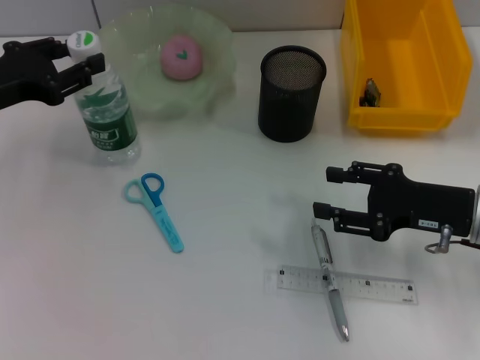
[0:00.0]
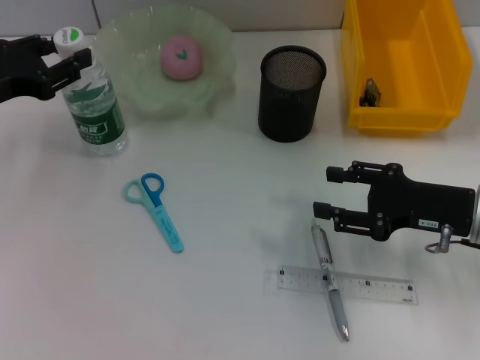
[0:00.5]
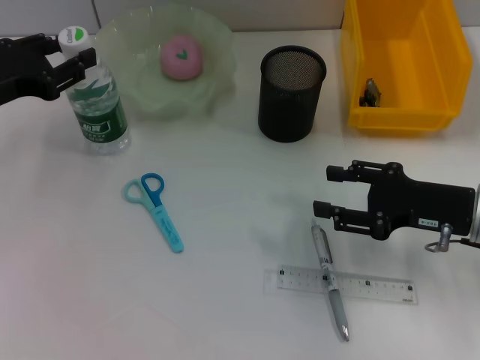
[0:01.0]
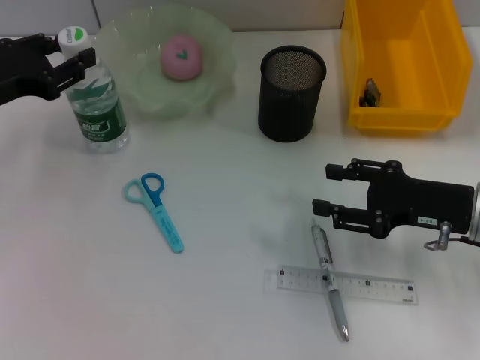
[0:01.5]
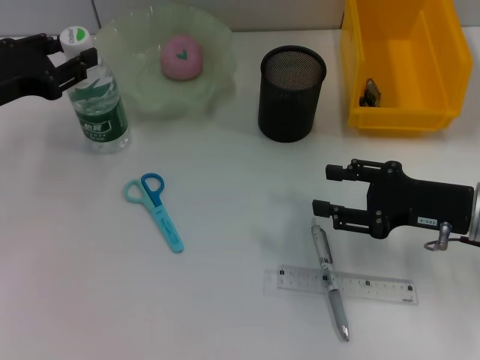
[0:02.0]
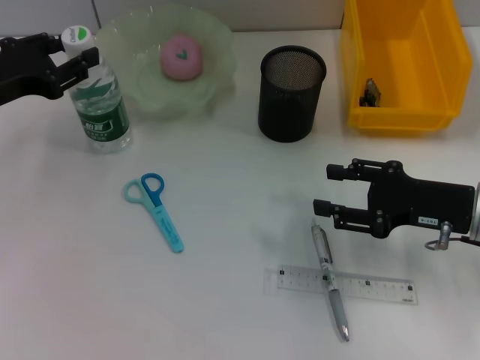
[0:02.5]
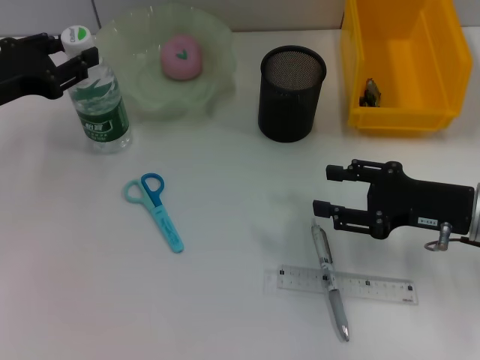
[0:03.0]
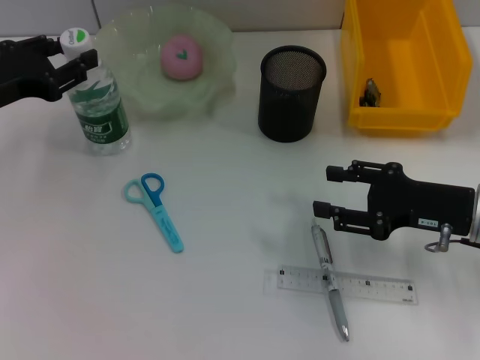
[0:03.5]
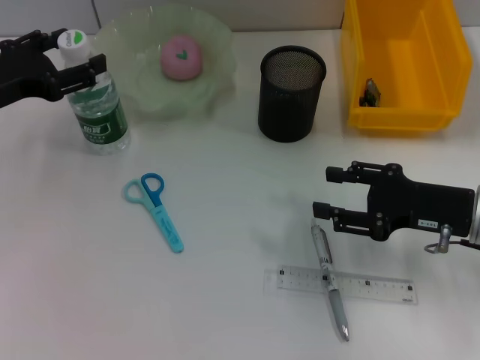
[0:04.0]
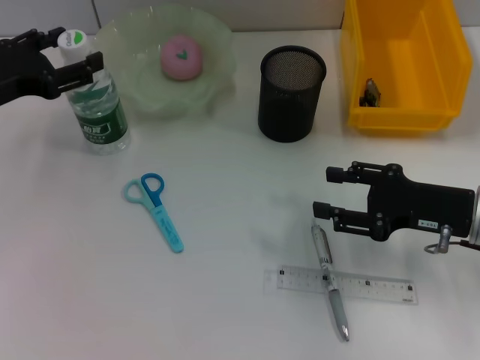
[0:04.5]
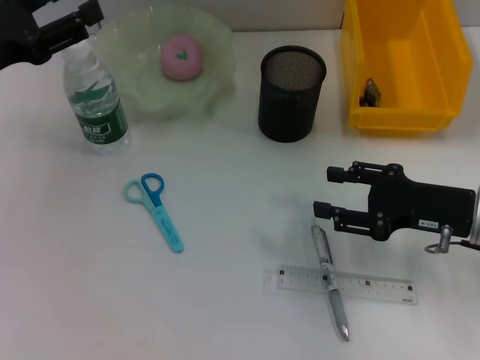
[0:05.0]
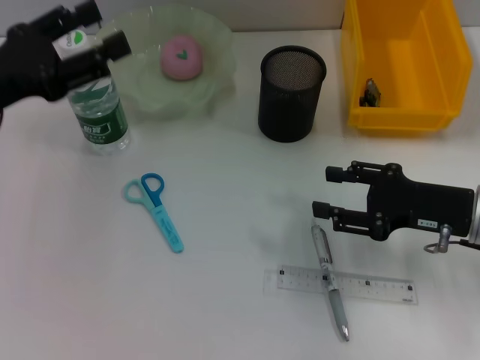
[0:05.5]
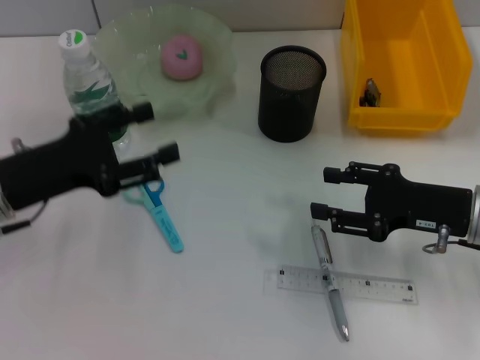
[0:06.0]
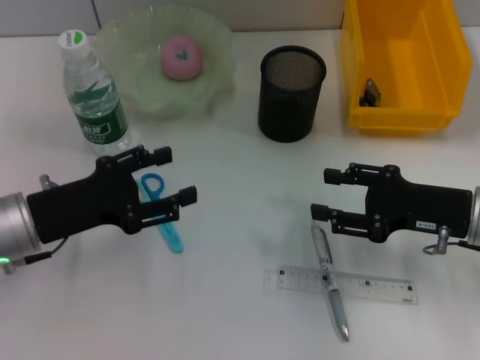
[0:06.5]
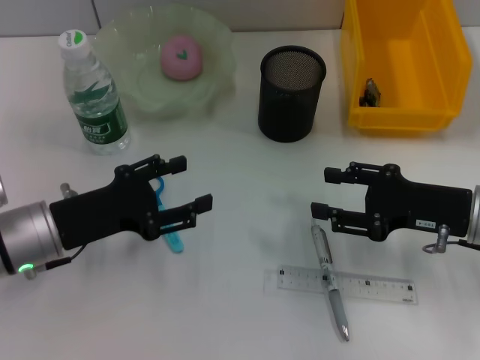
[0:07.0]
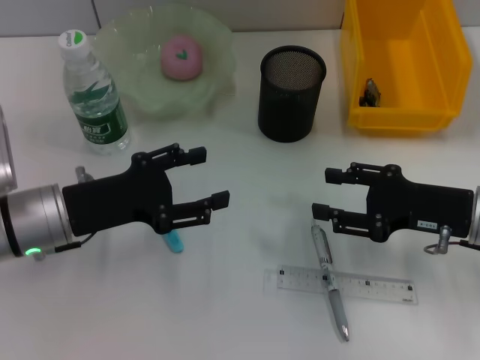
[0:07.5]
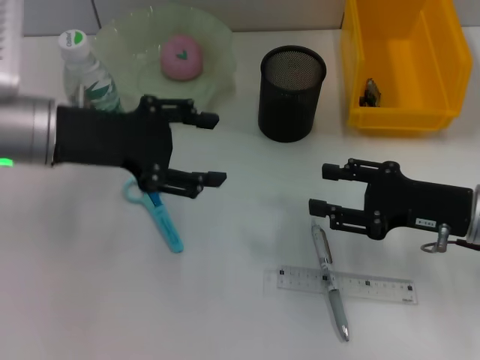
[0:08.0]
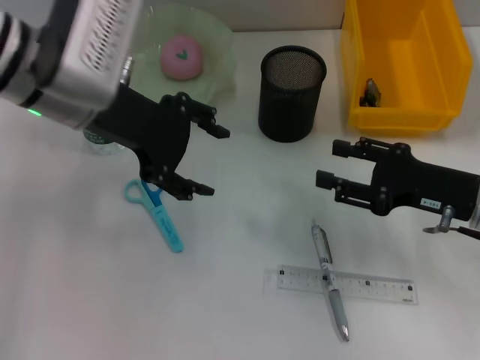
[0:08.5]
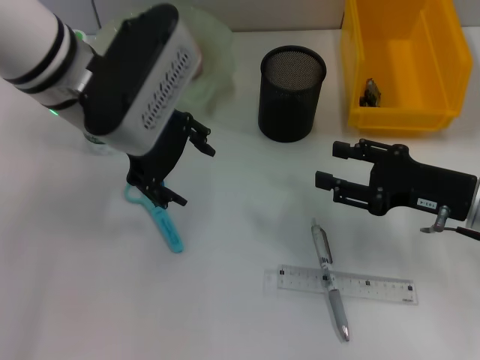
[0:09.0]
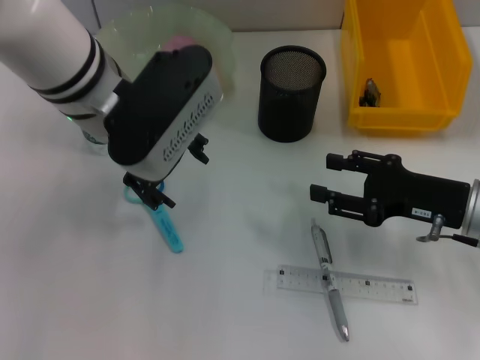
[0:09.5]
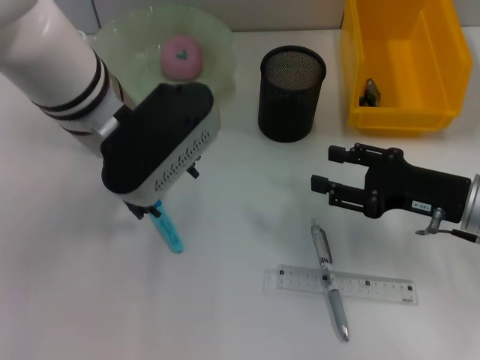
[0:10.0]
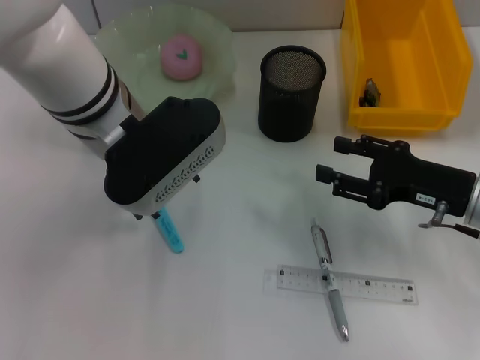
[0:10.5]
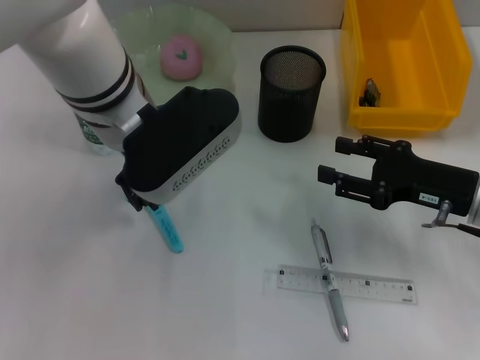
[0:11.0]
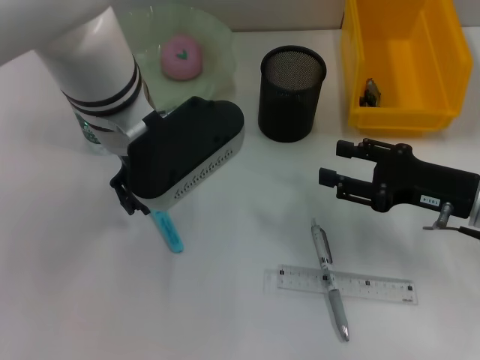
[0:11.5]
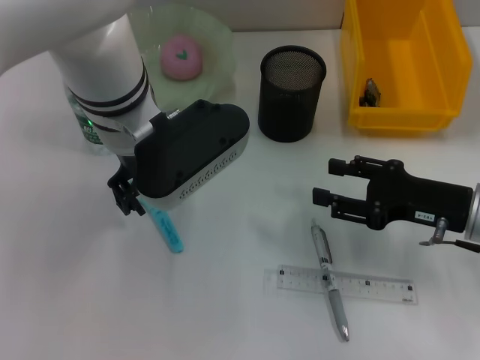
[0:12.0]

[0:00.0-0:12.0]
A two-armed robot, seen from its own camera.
Step, 0:00.0 to 0:04.5: Place the water bottle on the table with the left hand.
0:00.0 to 0:04.0: Both grippers stay about where they are.
0:04.0 to 0:06.0: The left gripper travels backward by about 5 cm.
0:06.0 to 0:08.0: The left gripper heads upward, forward and to the right, covering about 10 cm.
0:08.0 to 0:10.0: The left gripper is displaced to the right by some 10 cm.
0:10.0 to 0:12.0: The grippers stay close to where they were, moving slightly.

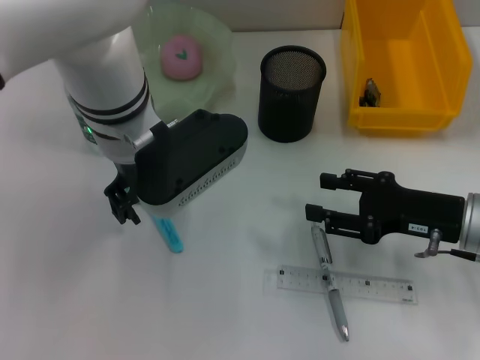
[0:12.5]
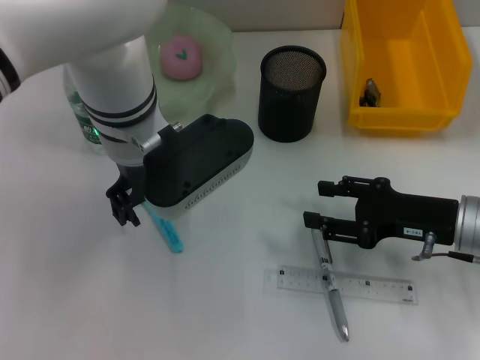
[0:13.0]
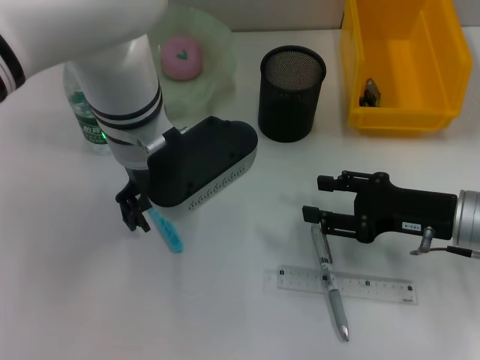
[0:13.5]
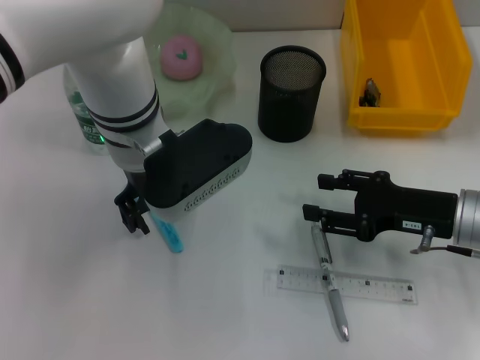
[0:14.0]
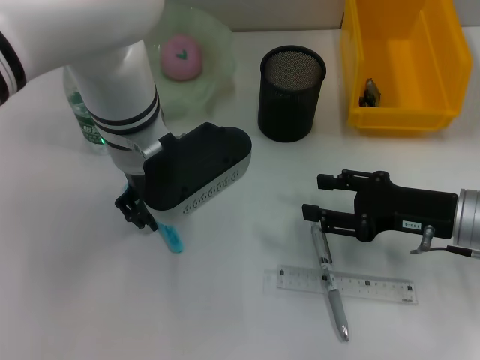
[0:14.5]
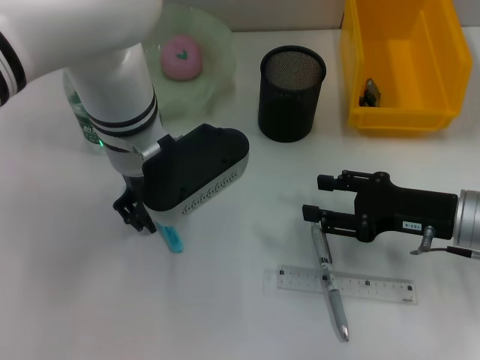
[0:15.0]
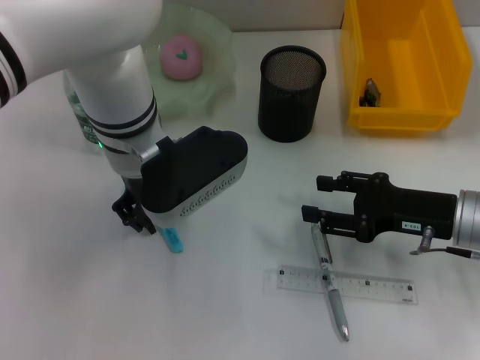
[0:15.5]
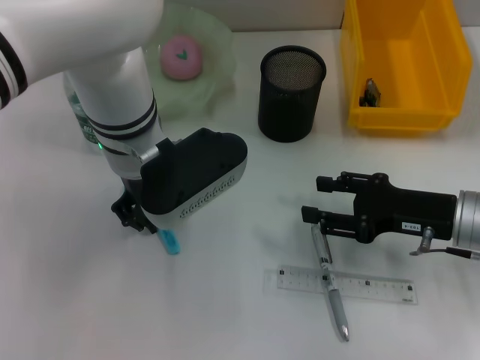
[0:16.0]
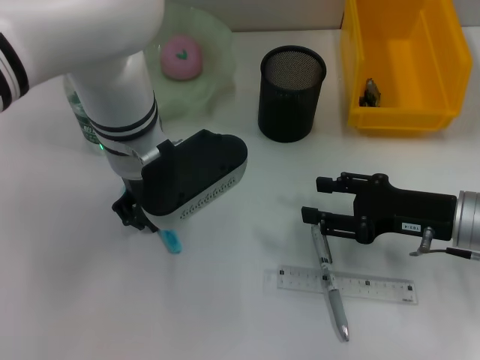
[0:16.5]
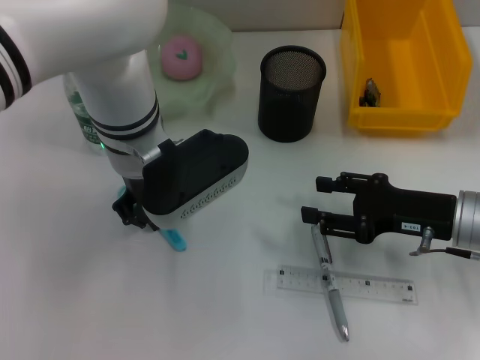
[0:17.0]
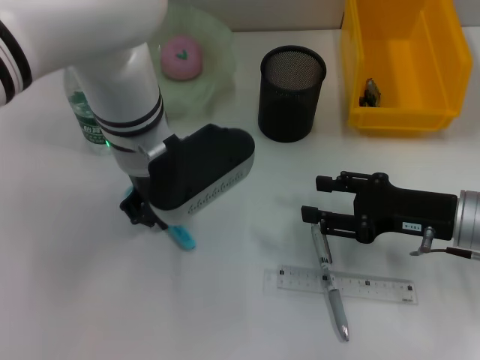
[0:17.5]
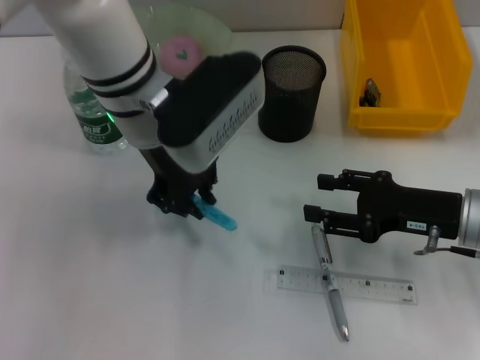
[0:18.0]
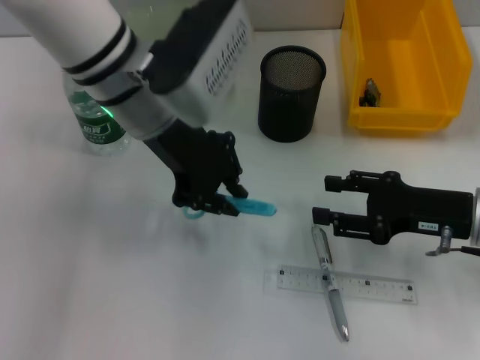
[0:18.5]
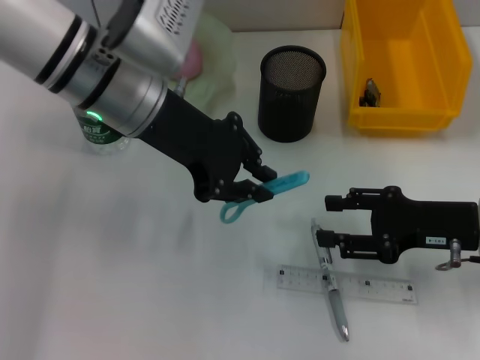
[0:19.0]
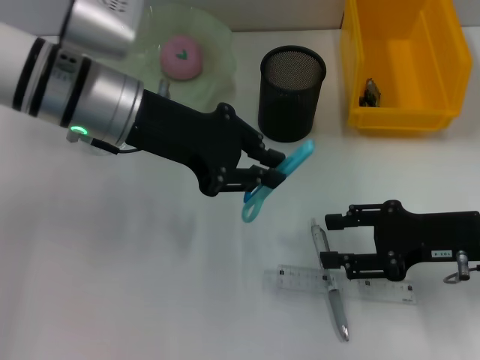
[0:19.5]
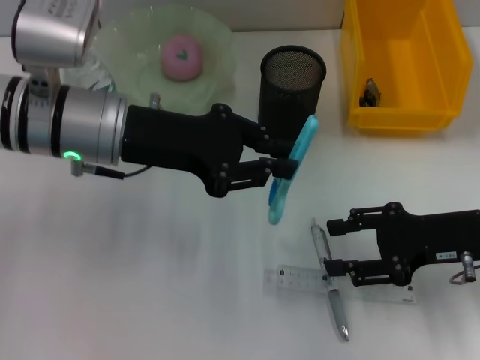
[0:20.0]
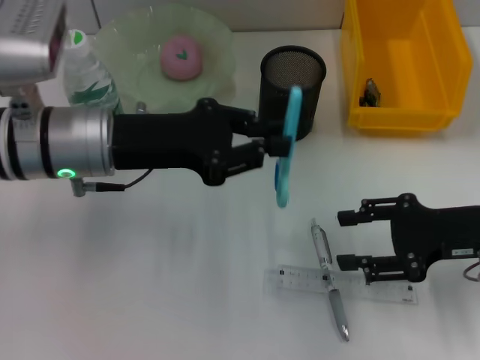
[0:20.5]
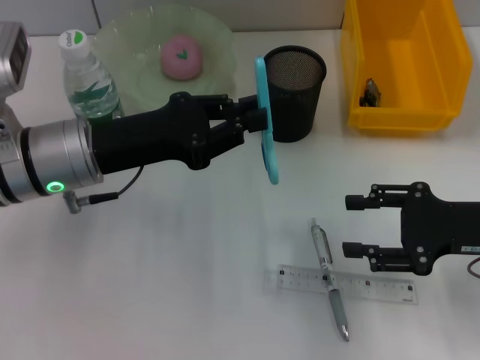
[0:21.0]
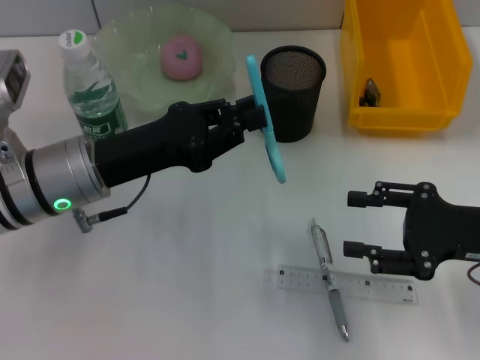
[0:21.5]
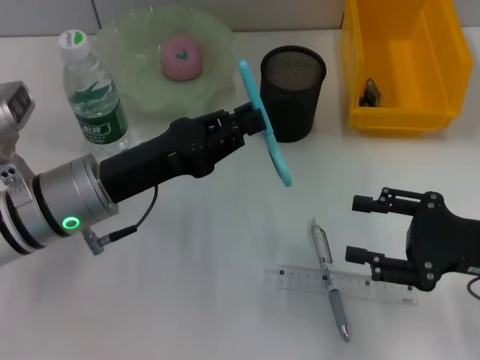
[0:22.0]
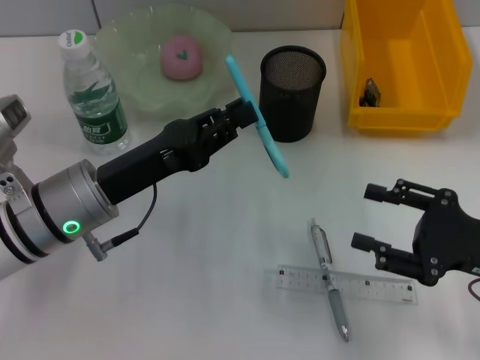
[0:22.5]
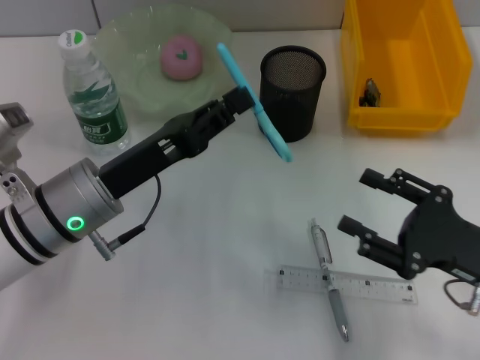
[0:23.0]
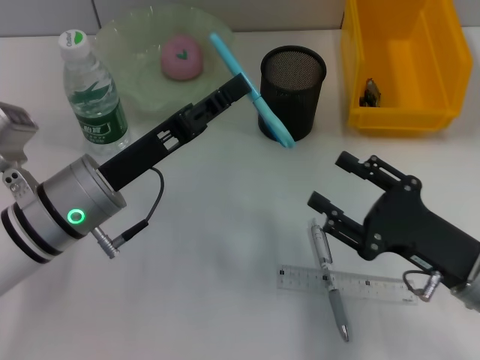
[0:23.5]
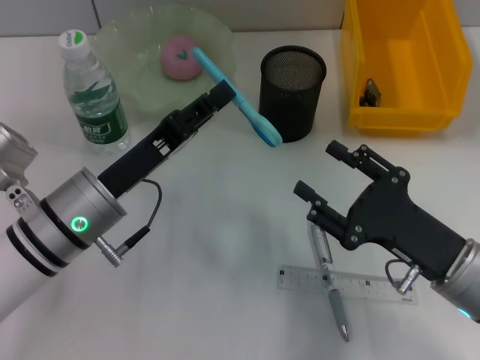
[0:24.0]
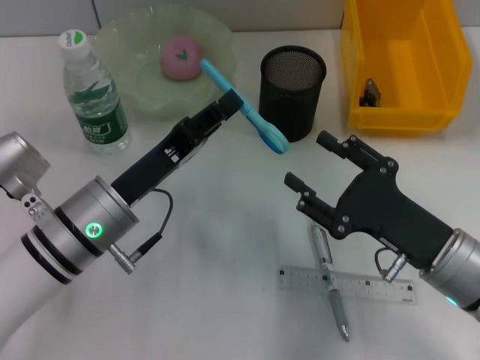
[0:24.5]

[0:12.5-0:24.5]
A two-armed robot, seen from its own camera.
Step, 0:12.5 to 0:17.0: Grab the blue scissors with the left hand.
0:12.5 to 0:14.5: The grippers stay close to where they were, moving slightly.
0:14.5 to 0:16.5: The left gripper closes its fingers.
0:16.5 to 0:18.5: The left gripper travels upward by roughly 5 cm.
0:18.5 to 0:20.5: The left gripper heads to the left and downward, covering roughly 10 cm.
0:20.5 to 0:22.5: The right gripper heads backward, covering approximately 5 cm, while the left gripper goes roughly 5 cm downward.
0:22.5 to 0:24.5: The right gripper moves to the left, about 10 cm.

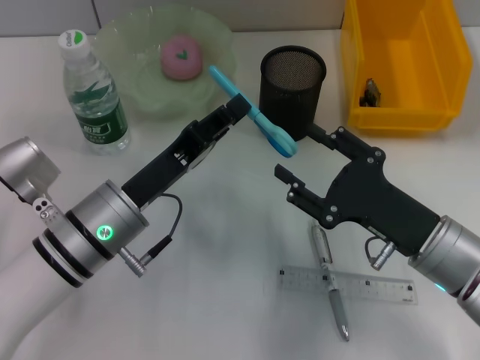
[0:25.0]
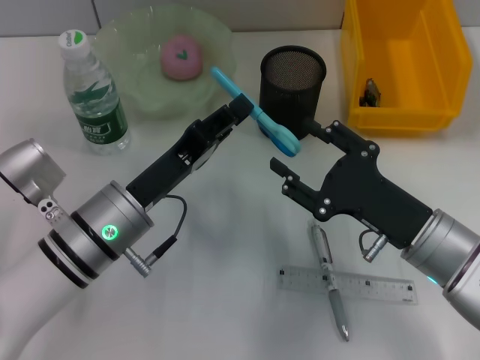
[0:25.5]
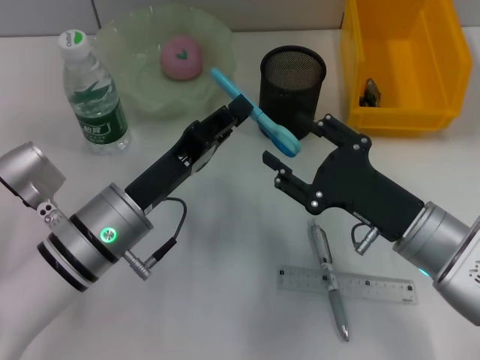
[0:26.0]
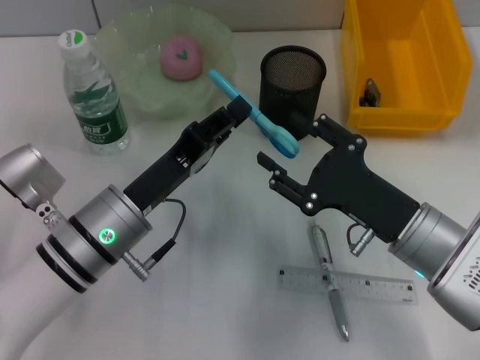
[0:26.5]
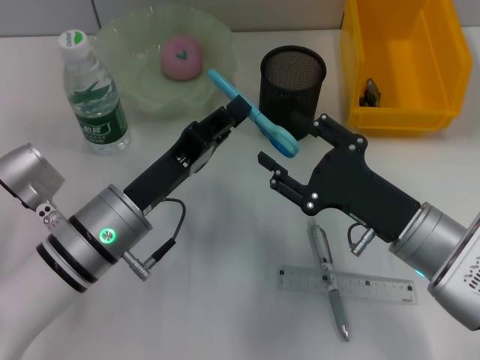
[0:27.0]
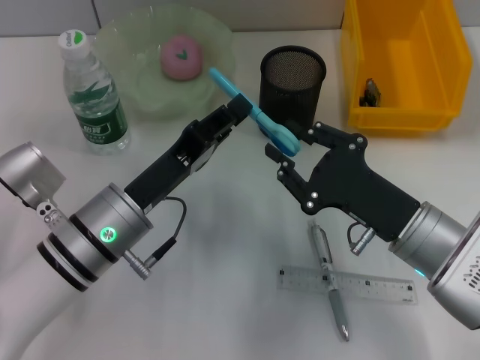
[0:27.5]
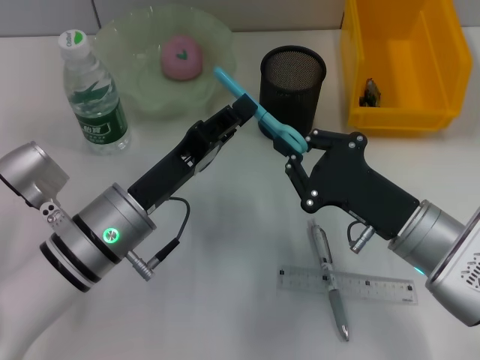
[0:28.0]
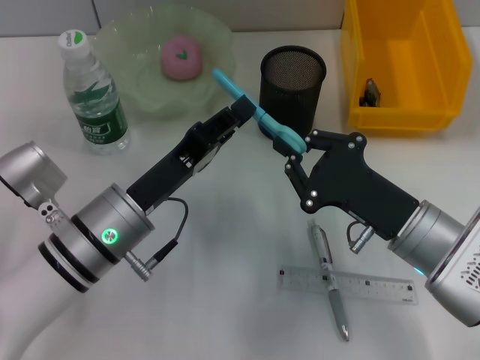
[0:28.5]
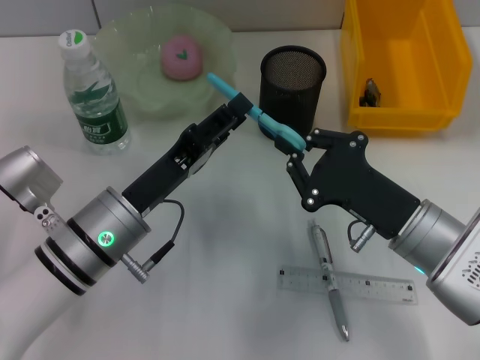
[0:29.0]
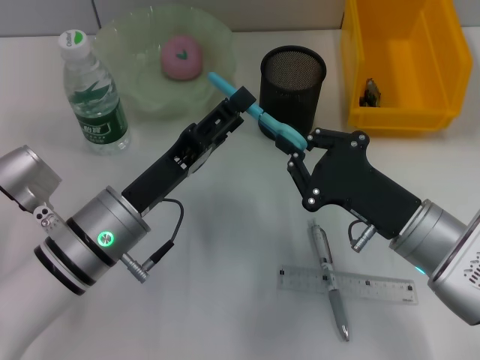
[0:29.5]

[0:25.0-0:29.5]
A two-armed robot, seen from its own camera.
0:25.0 to 0:27.0: The grippers make only small movements.
0:27.0 to 0:29.5: The left gripper opens up; the right gripper closes.
